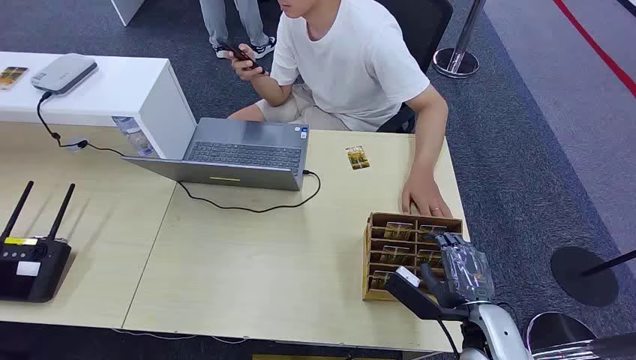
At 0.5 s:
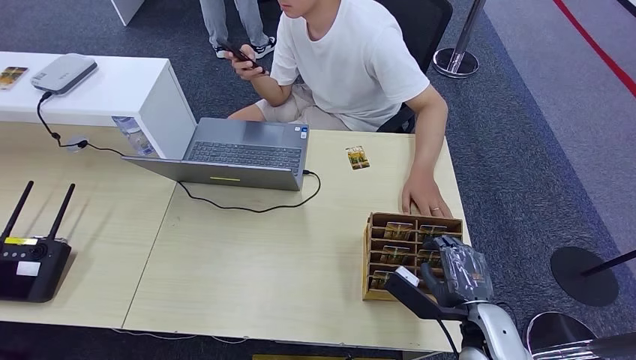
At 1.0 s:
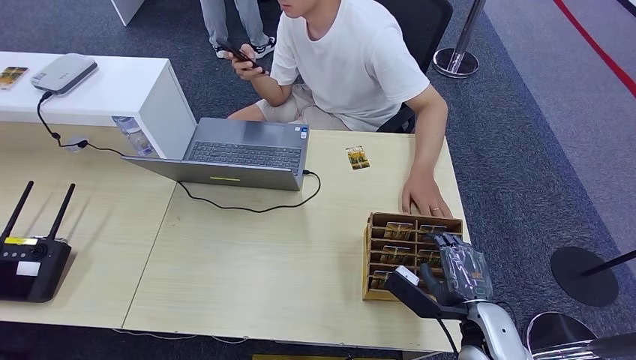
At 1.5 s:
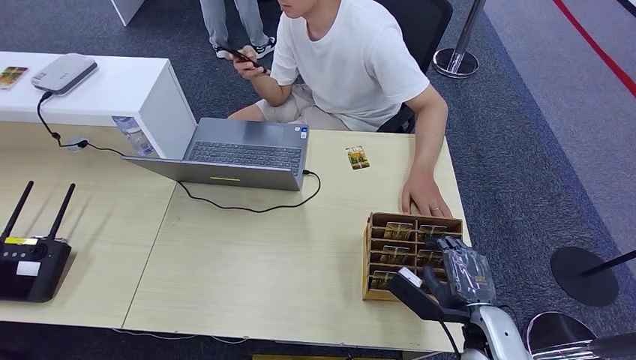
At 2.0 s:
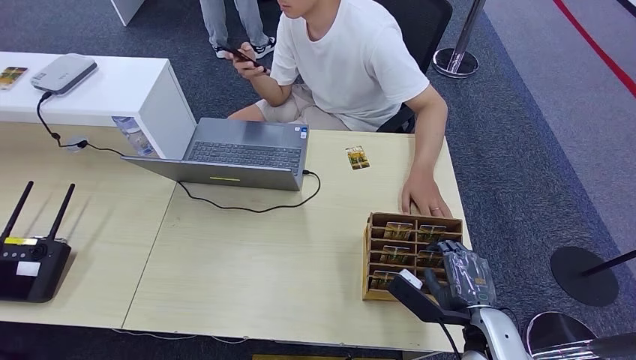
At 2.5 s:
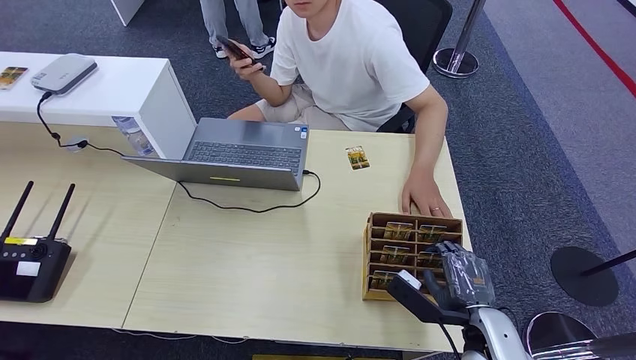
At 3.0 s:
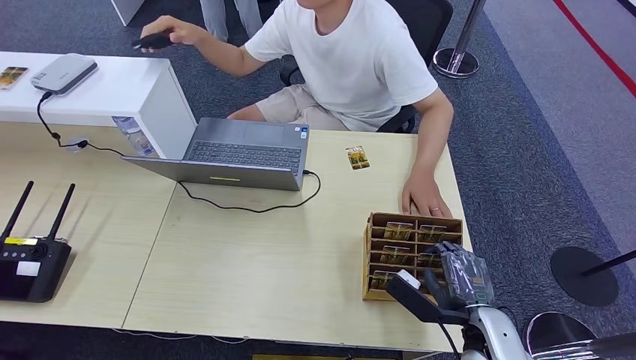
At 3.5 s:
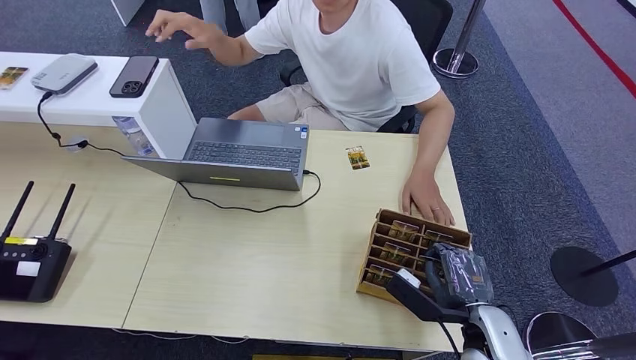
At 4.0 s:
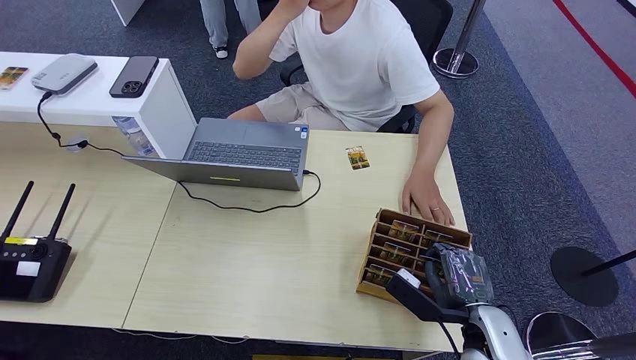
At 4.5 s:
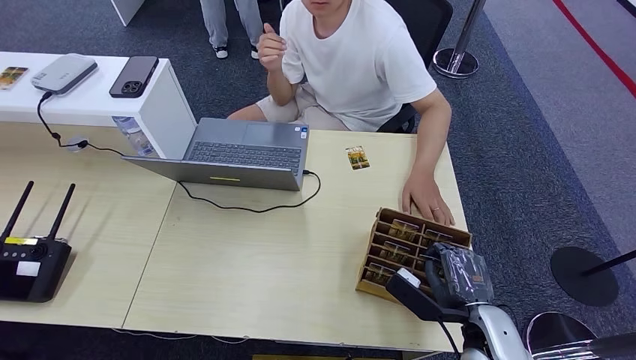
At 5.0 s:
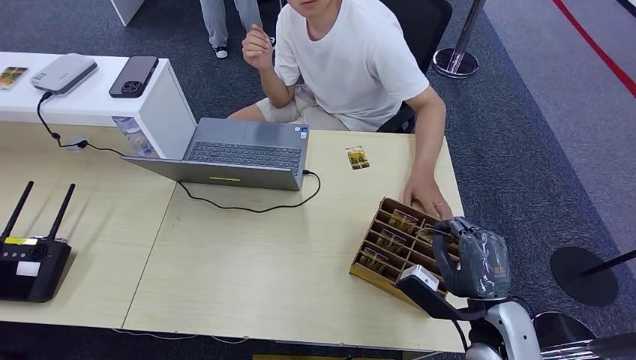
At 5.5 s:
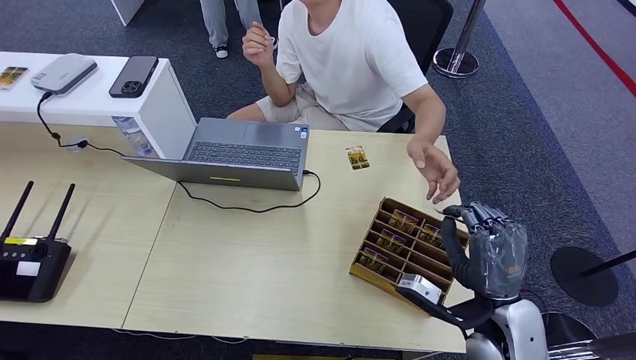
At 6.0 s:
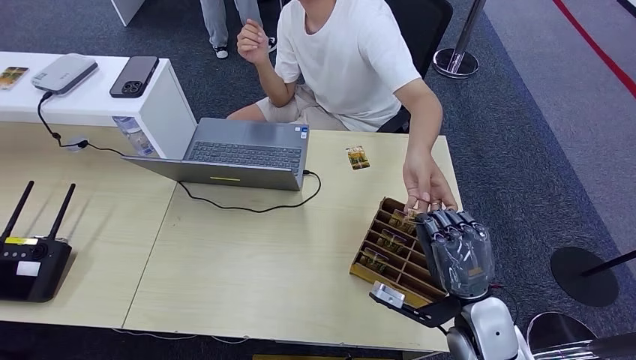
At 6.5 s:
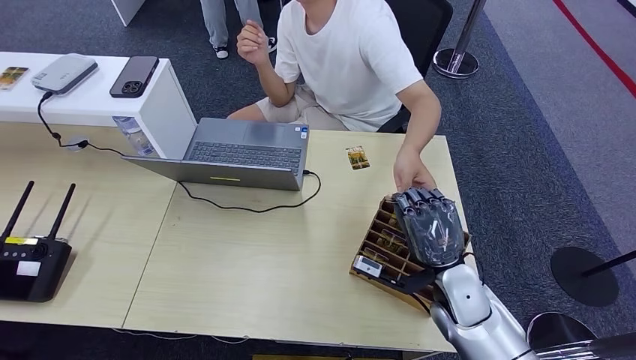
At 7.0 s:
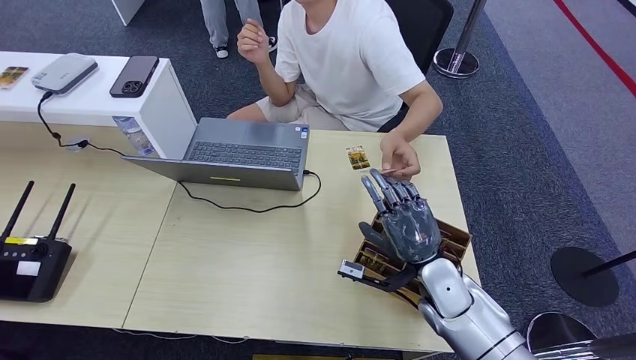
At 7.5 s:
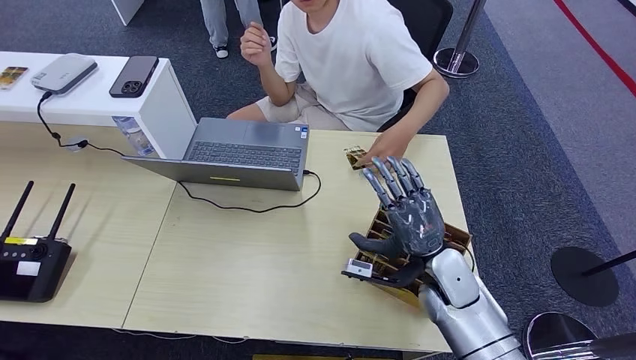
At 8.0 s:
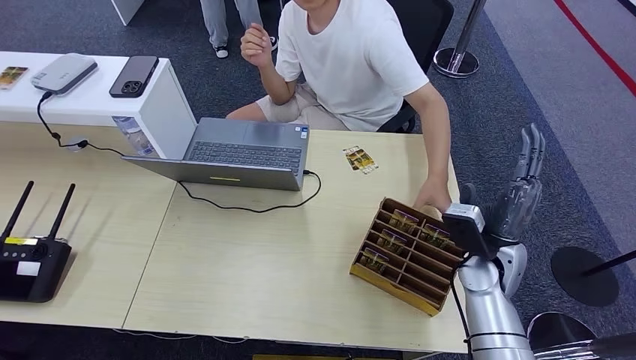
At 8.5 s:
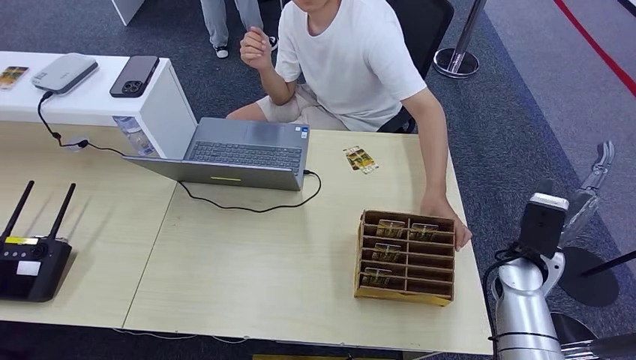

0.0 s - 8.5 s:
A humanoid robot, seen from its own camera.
Task of the whole recording: Pick up the card and hand it over to the target person.
Step, 0.0 s - 4.5 s: Pick up the key card from the card box.
Step, 5.0 s - 8.5 s: Hand the key card to the target.
2.0 s - 4.0 s: Neither hand changes place.
4.0 s - 6.5 s: The right hand travels forward and to the left by some 10 cm.
6.5 s - 8.5 s: The right hand heads to the right, covering roughly 20 cm.
